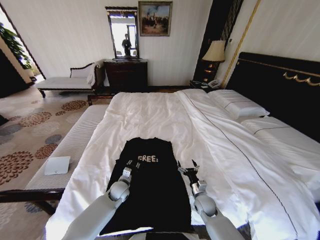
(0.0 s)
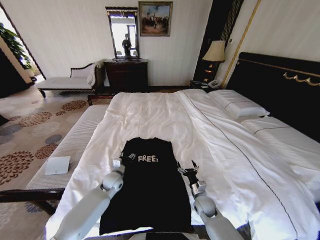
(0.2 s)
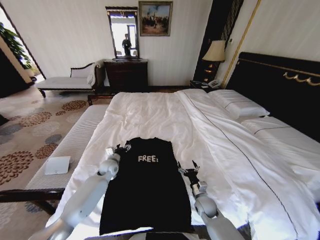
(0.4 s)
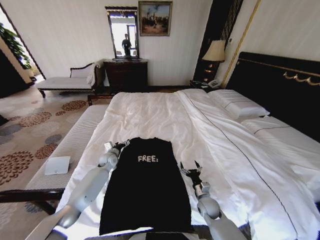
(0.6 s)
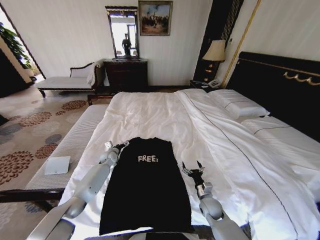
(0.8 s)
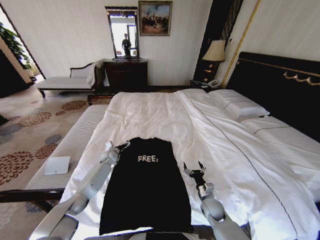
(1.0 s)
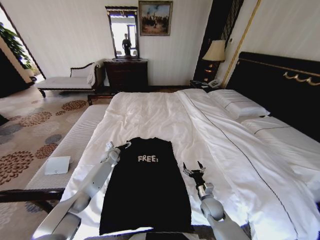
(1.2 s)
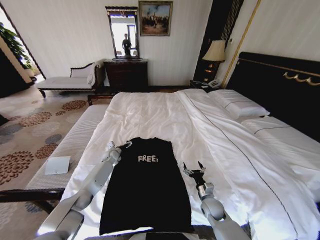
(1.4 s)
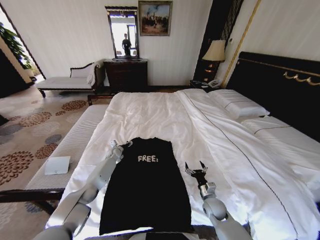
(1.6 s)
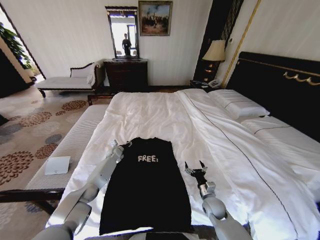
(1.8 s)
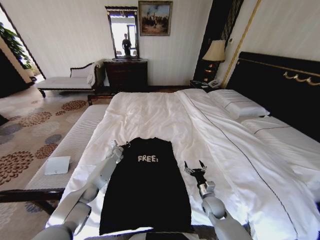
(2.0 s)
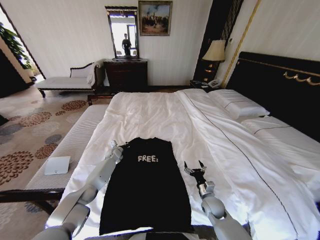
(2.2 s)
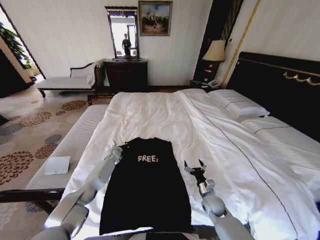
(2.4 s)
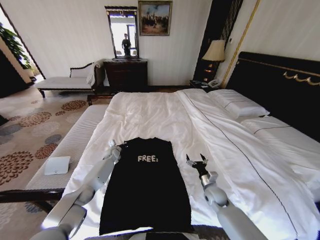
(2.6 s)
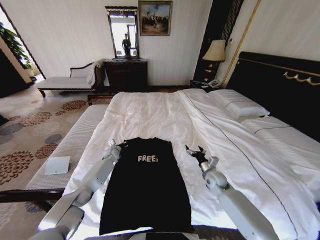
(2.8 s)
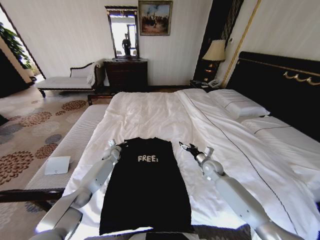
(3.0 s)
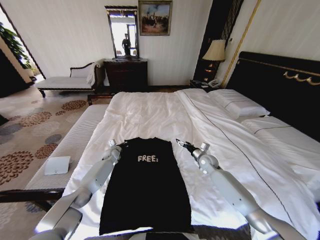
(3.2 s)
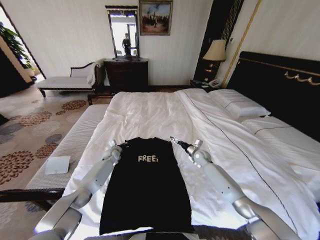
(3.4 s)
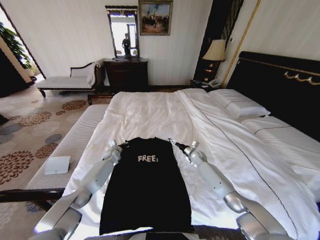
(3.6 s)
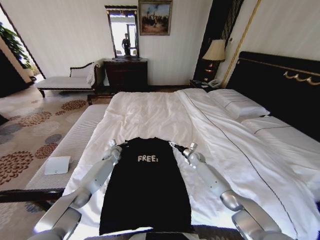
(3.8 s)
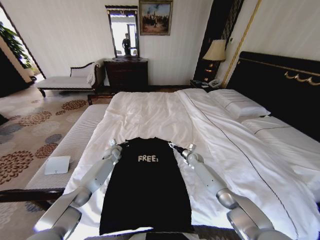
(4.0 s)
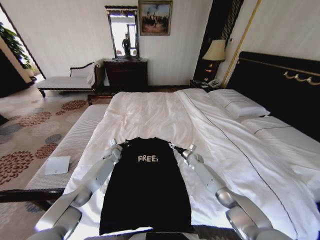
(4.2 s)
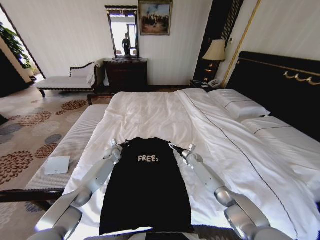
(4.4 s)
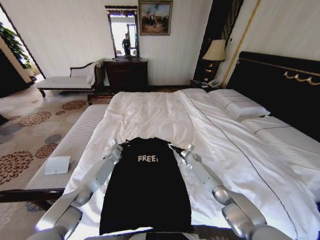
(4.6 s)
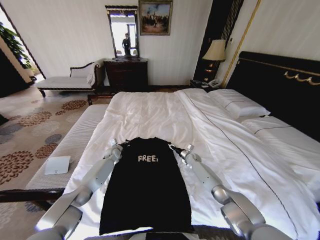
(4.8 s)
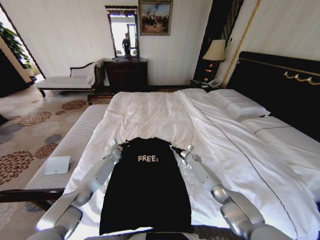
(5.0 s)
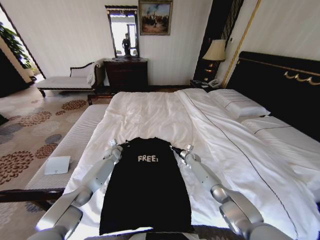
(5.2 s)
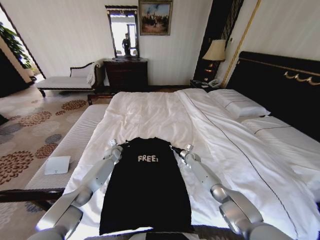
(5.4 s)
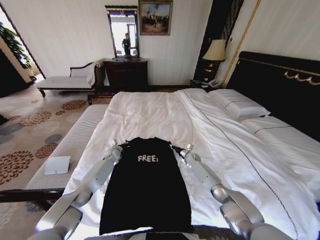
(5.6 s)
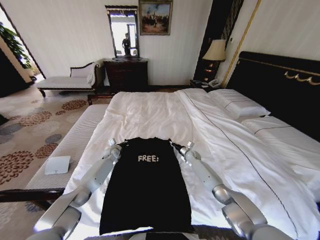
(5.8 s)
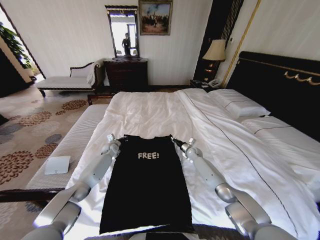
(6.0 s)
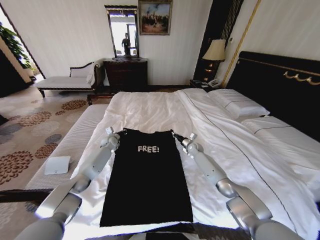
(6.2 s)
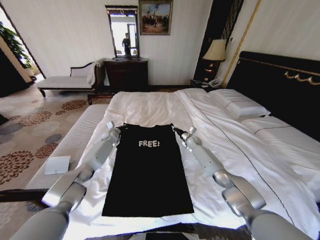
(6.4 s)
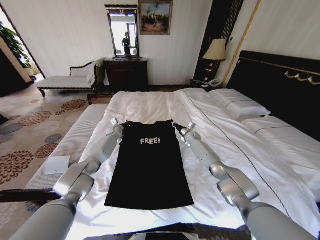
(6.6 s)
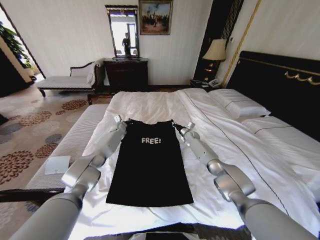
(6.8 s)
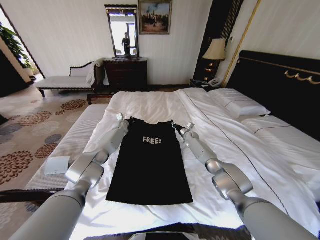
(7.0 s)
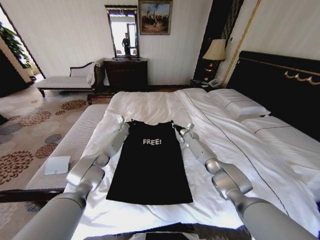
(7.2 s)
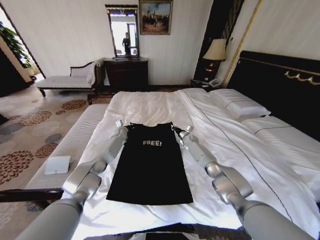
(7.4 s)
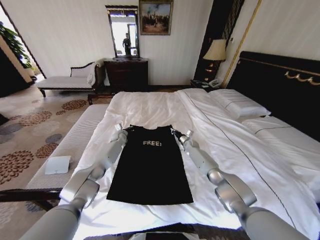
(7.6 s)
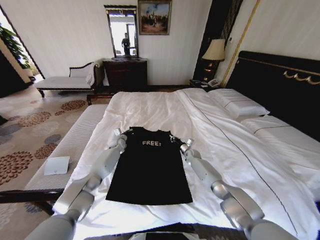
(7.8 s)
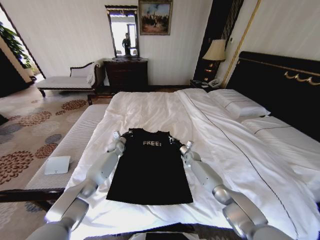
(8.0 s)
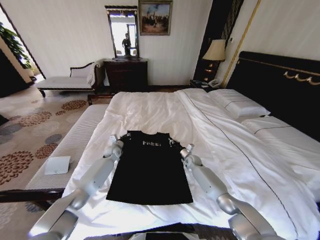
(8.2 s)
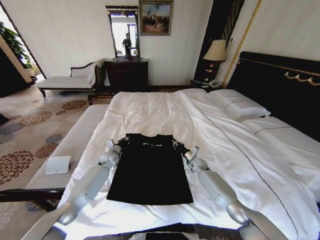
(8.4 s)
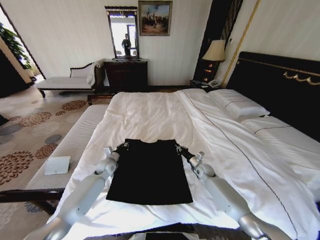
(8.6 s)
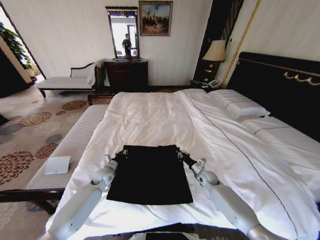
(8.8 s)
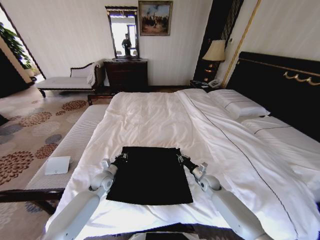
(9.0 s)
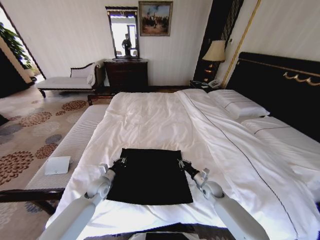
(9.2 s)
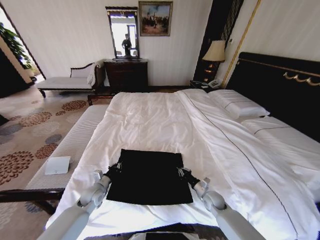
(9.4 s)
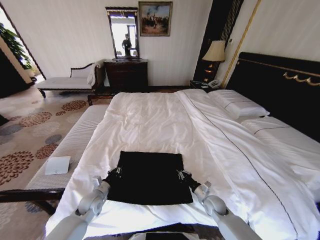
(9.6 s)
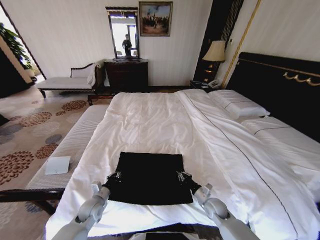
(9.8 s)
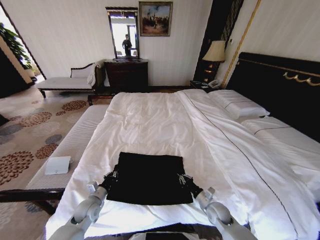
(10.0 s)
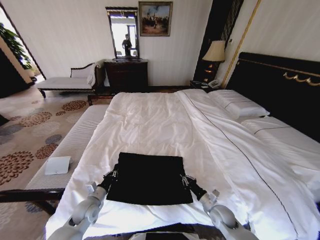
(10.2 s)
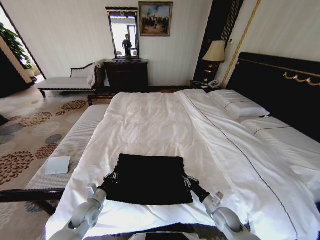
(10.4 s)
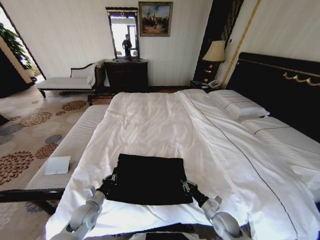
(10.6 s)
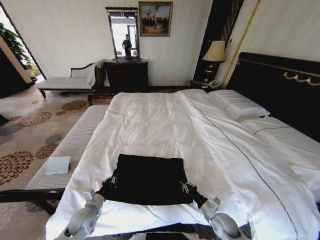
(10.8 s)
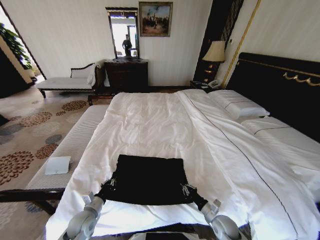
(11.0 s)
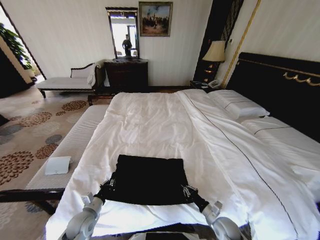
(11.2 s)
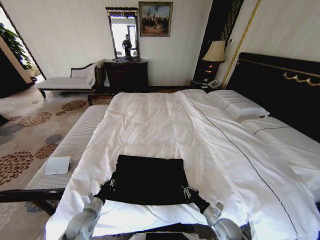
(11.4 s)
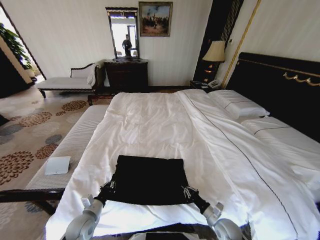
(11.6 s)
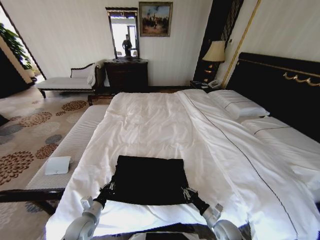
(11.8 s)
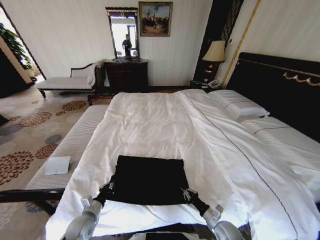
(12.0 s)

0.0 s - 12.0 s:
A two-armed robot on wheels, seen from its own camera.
Task of the whole recording: Fold the clothes on the bed.
0.0 s - 1.6 s: The left gripper is displaced forward by some 20 cm, and opens up.
1.6 s - 3.0 s: The left gripper closes its fingers; the right gripper goes about 20 cm forward and upward.
3.0 s - 4.4 s: The right gripper shifts roughly 15 cm forward and downward.
4.4 s - 6.0 s: The right gripper closes its fingers.
6.0 s - 7.6 s: The two grippers go some 5 cm forward.
7.6 s - 9.0 s: The two grippers go approximately 25 cm backward.
9.0 s - 10.4 s: Both grippers travel together backward, some 15 cm.
10.4 s - 12.0 s: The right gripper shifts by some 5 cm.

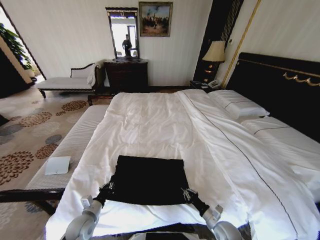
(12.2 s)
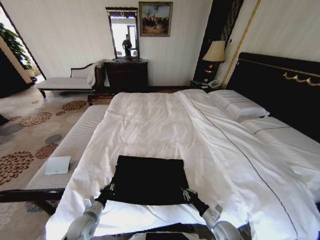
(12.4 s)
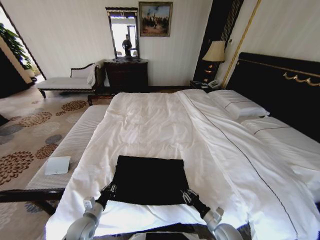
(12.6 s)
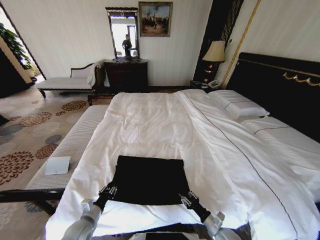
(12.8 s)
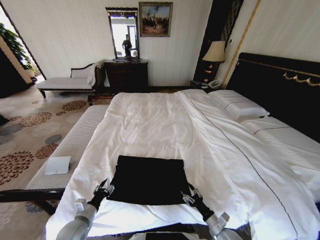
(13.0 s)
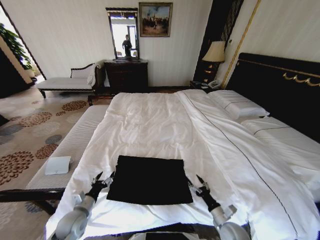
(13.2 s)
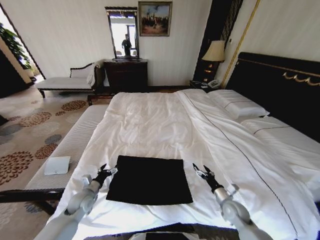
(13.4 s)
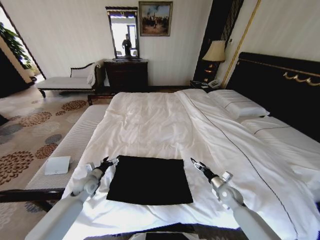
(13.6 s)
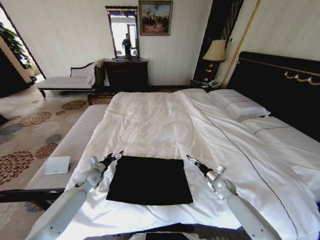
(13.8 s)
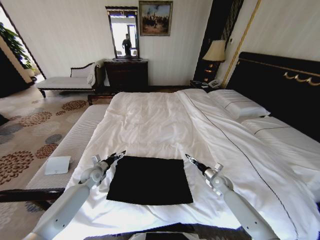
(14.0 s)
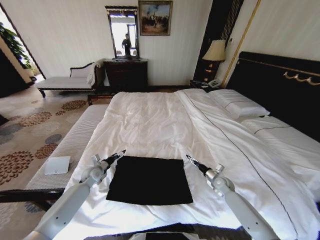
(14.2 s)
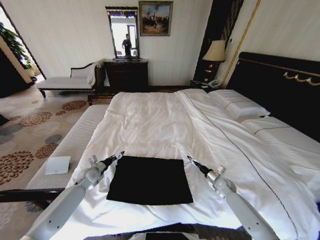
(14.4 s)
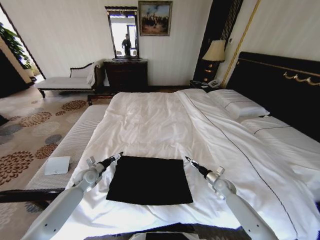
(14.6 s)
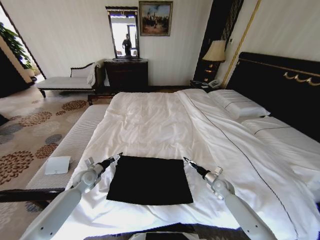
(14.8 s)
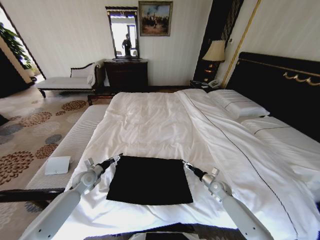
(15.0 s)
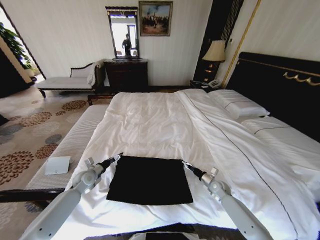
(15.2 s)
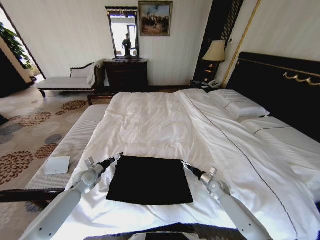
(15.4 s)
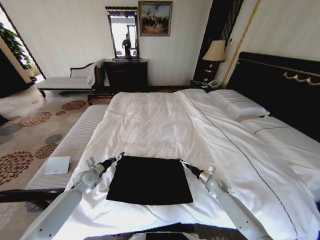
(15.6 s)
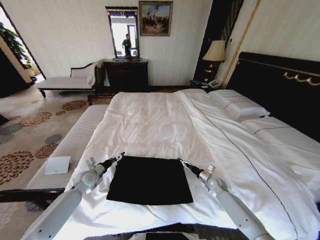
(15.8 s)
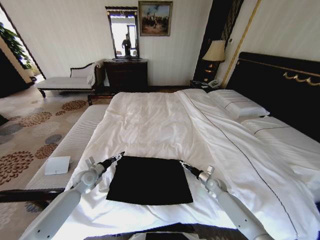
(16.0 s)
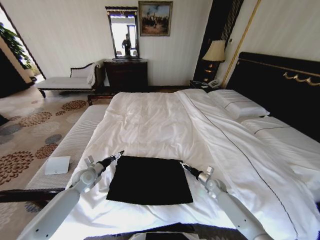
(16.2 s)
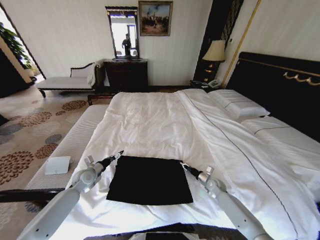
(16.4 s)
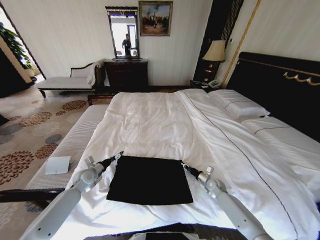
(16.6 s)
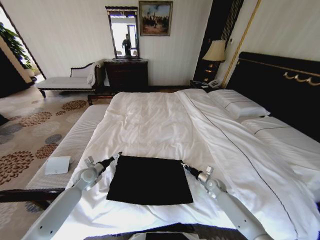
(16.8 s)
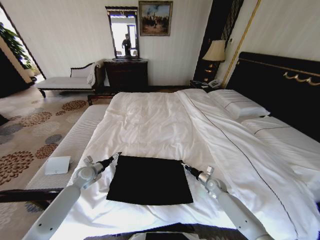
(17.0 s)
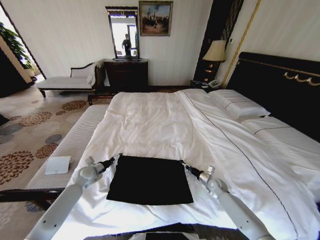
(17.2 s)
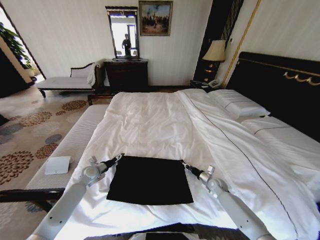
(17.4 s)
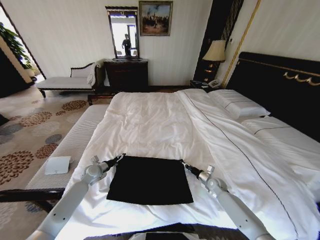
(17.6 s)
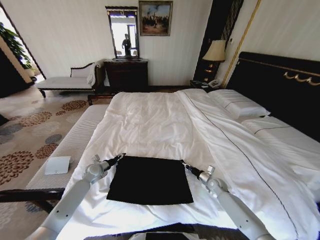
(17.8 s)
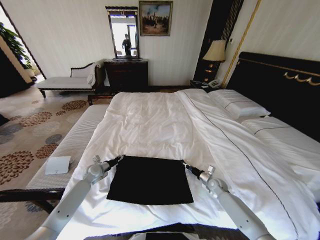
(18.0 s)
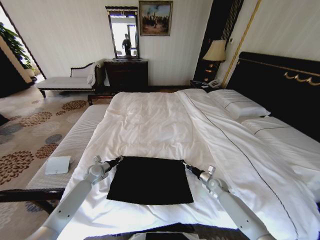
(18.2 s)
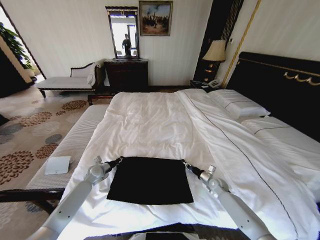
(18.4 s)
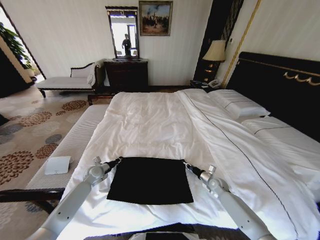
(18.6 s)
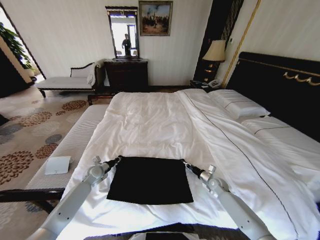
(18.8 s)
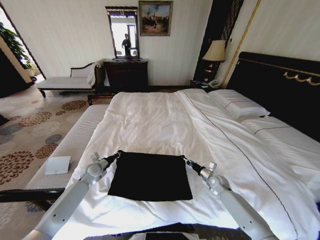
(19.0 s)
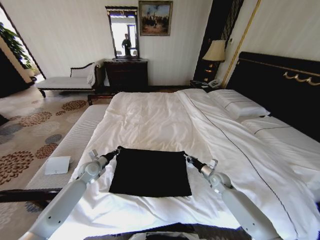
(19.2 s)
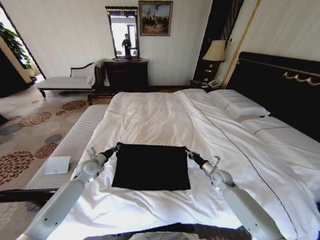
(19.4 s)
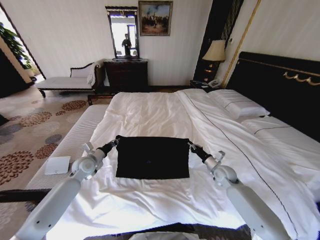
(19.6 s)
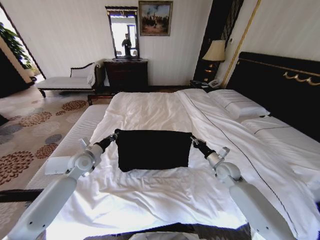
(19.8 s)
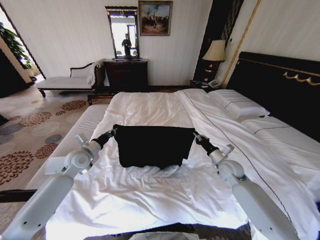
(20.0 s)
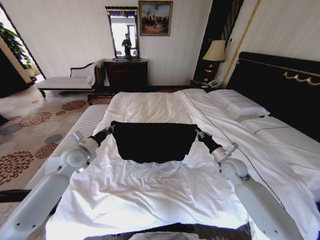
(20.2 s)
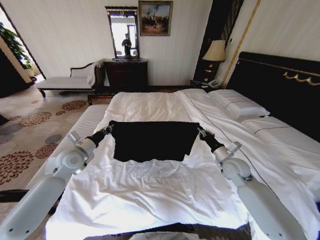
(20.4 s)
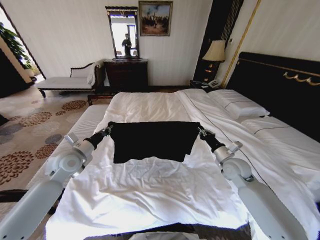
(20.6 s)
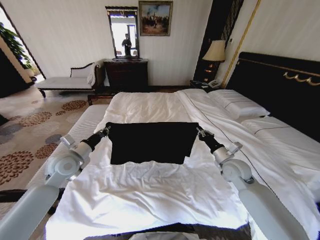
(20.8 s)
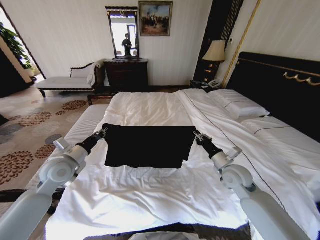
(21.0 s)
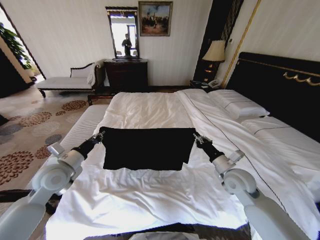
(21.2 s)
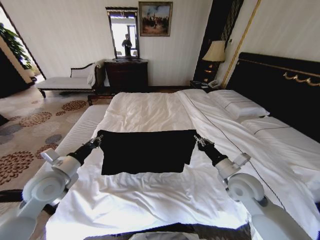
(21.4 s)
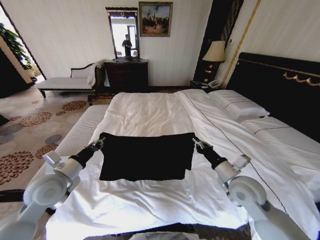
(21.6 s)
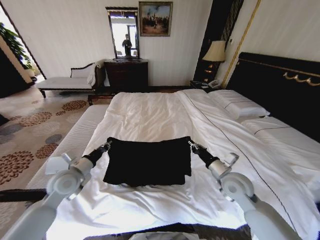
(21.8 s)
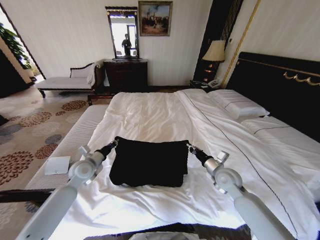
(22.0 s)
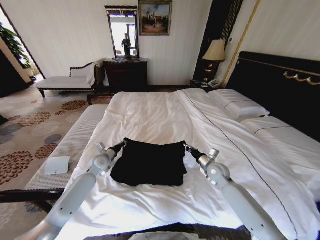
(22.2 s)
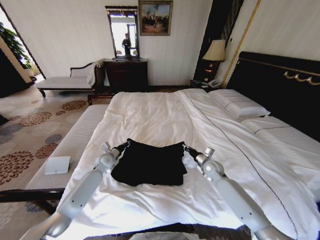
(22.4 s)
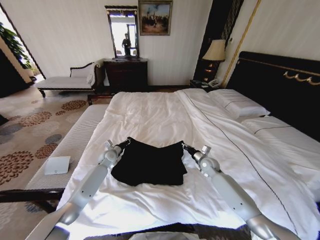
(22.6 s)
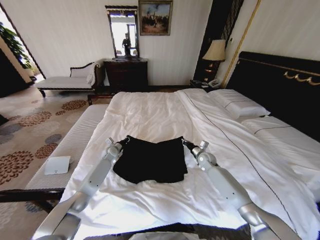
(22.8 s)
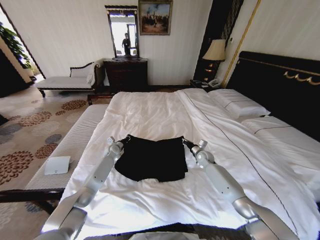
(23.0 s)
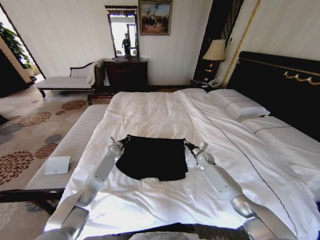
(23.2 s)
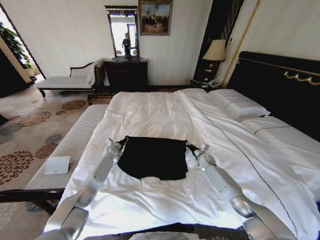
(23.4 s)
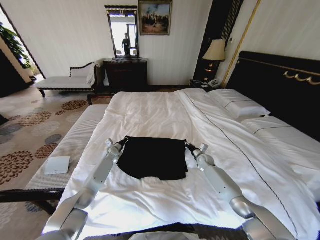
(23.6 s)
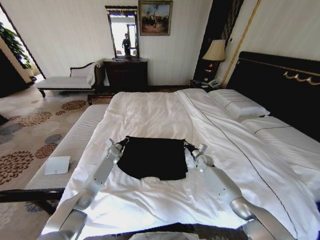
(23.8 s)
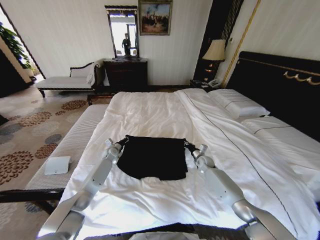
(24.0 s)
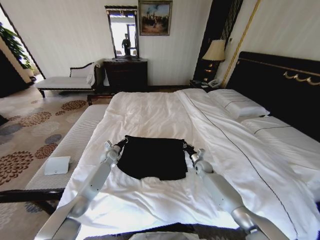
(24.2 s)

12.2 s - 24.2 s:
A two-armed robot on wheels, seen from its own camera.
Task of the whole recording: Fold the clothes on the bed.
12.2 s - 13.8 s: Both grippers move forward, roughly 20 cm. The right gripper opens its fingers. Meanwhile the left gripper opens its fingers.
13.8 s - 15.2 s: The grippers move only a little.
15.2 s - 16.6 s: The right gripper closes.
16.6 s - 18.2 s: The left gripper shifts by roughly 5 cm, and closes.
18.2 s - 19.8 s: The grippers both shift upward by some 15 cm.
19.8 s - 21.2 s: The grippers both shift backward and upward by roughly 10 cm.
21.2 s - 22.6 s: The left gripper is displaced forward, downward and to the right by approximately 30 cm; the right gripper moves forward and downward, approximately 20 cm.
22.6 s - 24.2 s: The right gripper shifts some 5 cm downward, while the left gripper shifts by roughly 5 cm.
